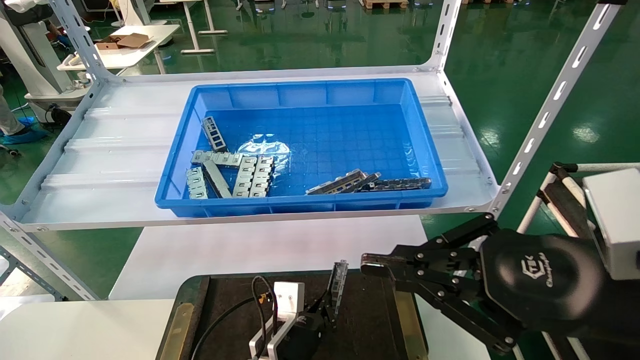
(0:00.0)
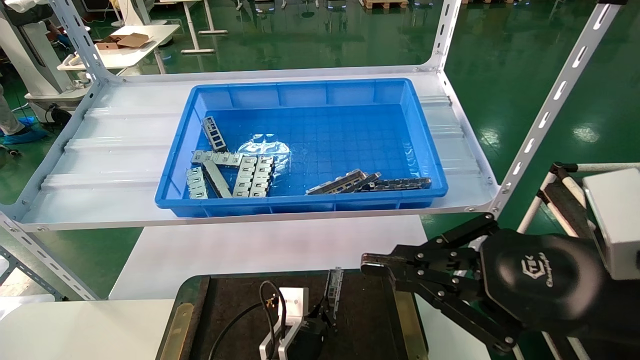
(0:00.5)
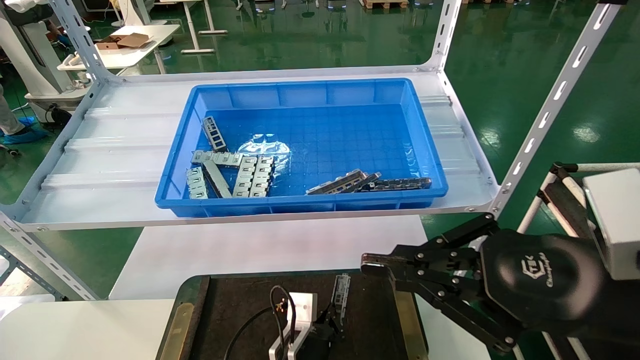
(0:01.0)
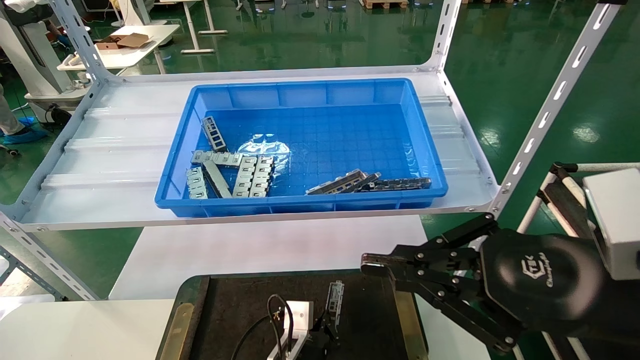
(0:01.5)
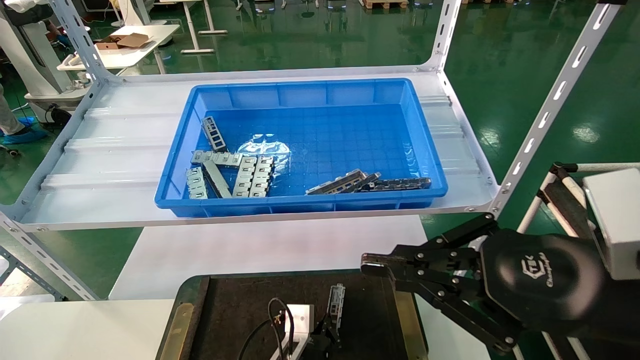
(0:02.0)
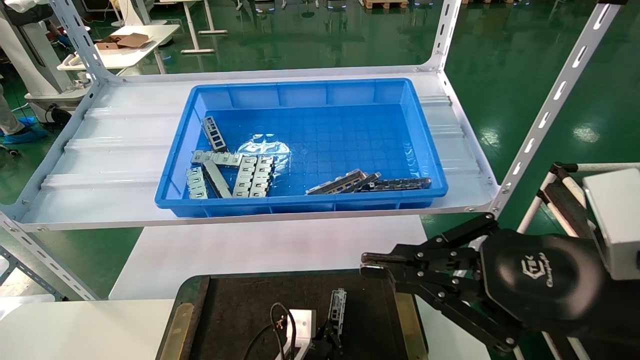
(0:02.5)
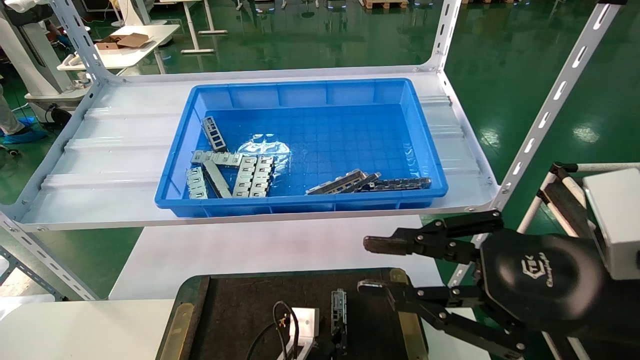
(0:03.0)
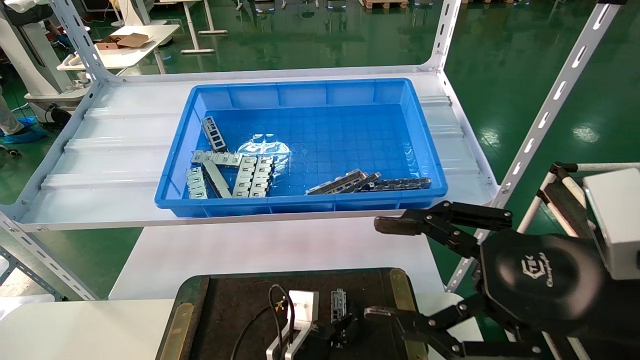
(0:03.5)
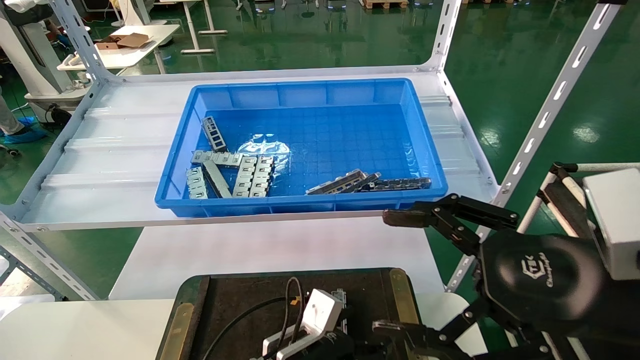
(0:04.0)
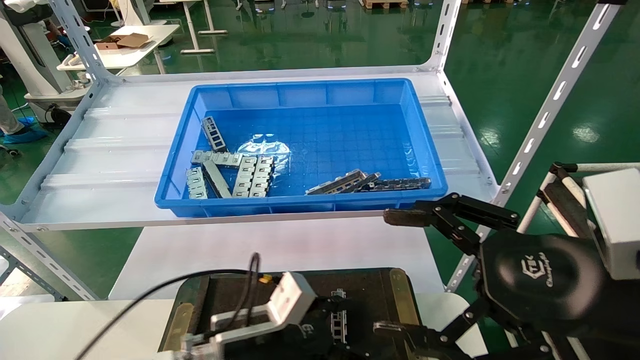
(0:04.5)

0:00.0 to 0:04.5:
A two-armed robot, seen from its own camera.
Task of the whole recording: Grasp the part with one hand and place it on the black container.
Step, 0:00.0 to 0:02.5: Place the front USB bracket into the box.
0:00.0 to 0:02.0: The left gripper shifts roughly 5 cm downward.
0:02.0 to 0:04.5: The left gripper is displaced upward, to the left and backward by some 15 cm, and opens its fingers. The right gripper opens.
